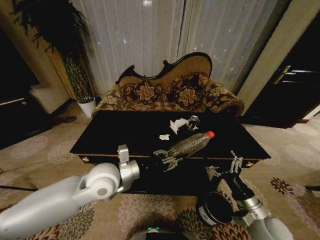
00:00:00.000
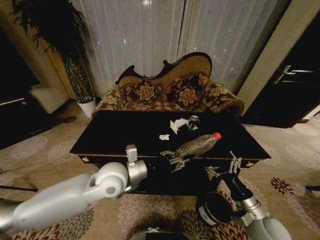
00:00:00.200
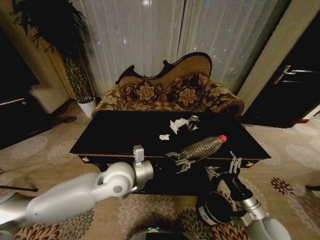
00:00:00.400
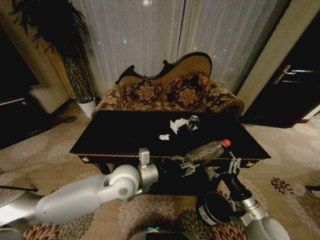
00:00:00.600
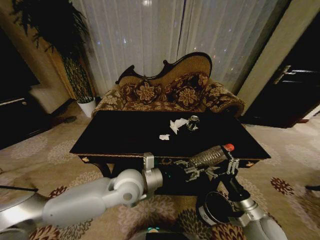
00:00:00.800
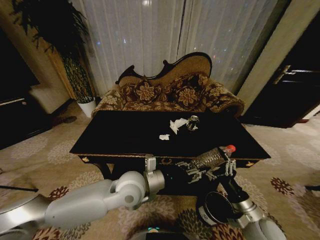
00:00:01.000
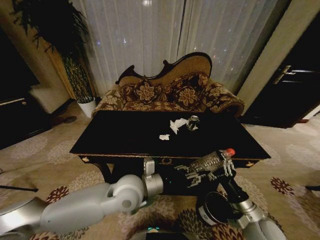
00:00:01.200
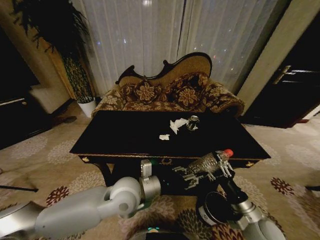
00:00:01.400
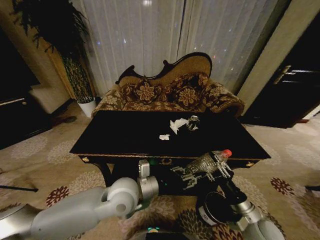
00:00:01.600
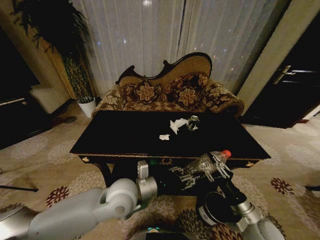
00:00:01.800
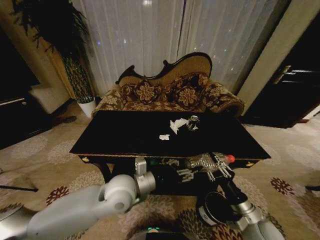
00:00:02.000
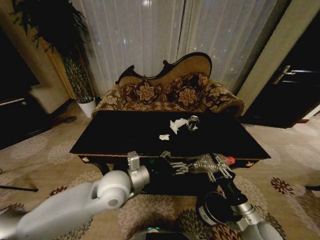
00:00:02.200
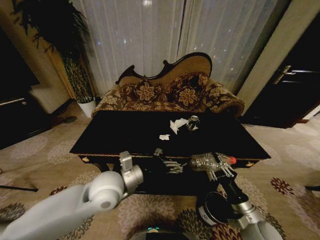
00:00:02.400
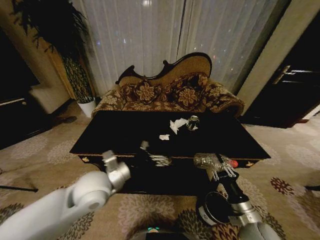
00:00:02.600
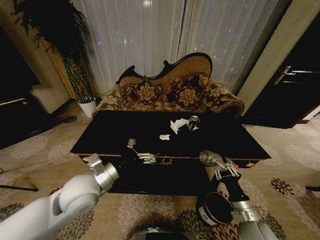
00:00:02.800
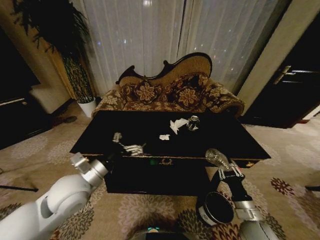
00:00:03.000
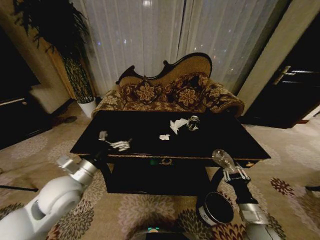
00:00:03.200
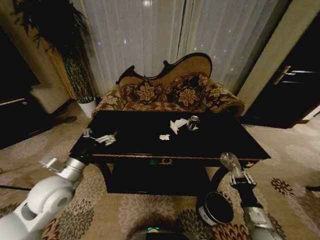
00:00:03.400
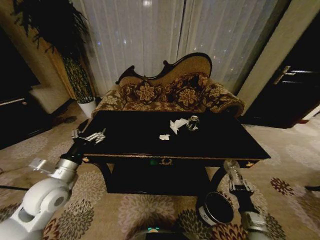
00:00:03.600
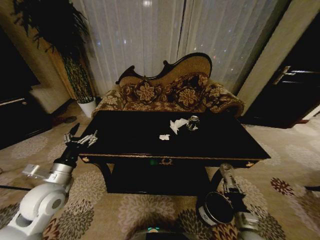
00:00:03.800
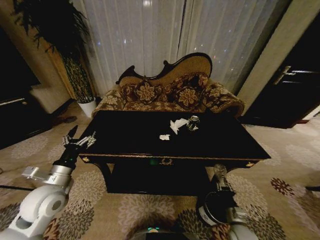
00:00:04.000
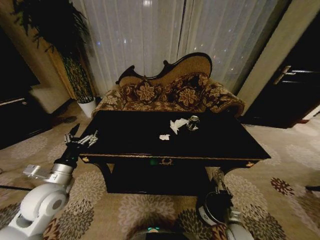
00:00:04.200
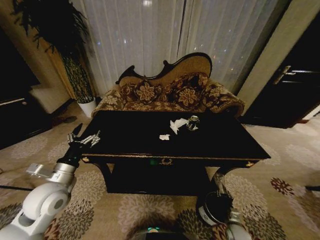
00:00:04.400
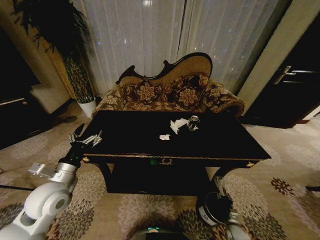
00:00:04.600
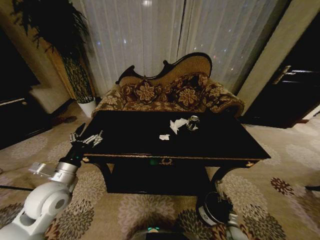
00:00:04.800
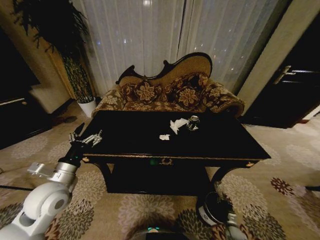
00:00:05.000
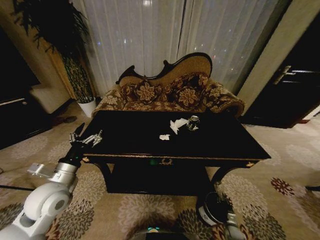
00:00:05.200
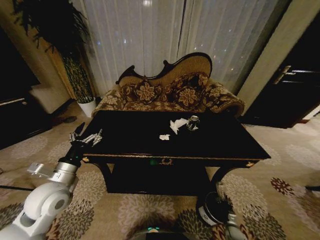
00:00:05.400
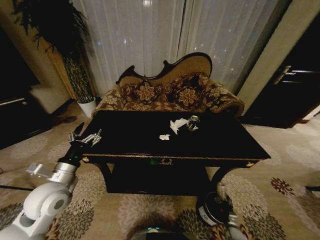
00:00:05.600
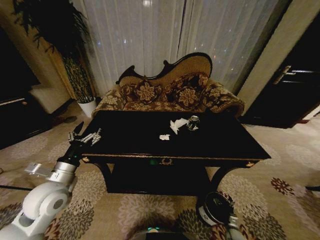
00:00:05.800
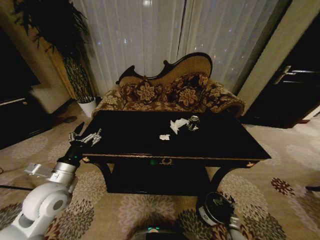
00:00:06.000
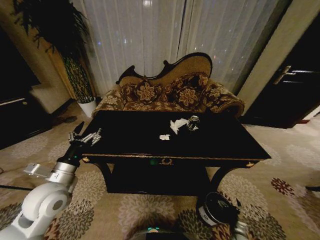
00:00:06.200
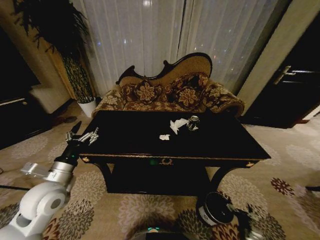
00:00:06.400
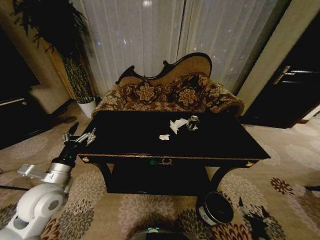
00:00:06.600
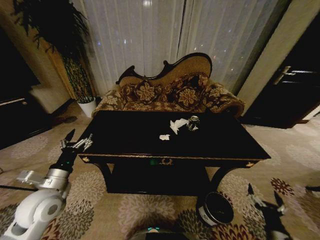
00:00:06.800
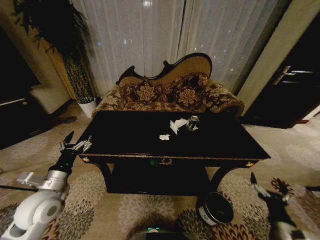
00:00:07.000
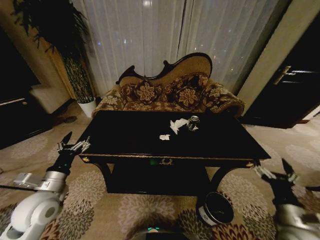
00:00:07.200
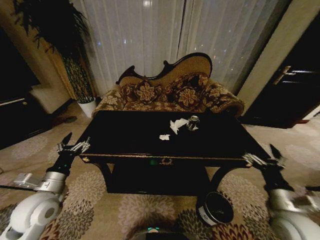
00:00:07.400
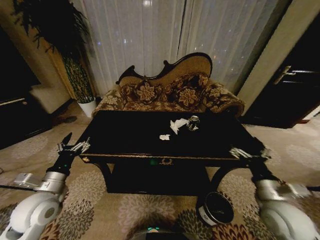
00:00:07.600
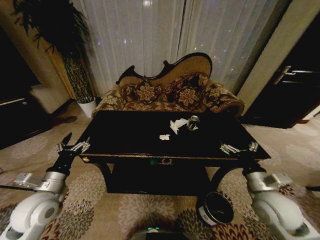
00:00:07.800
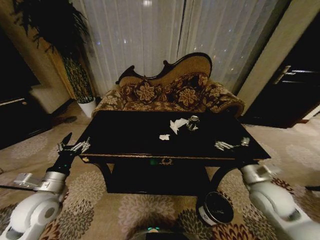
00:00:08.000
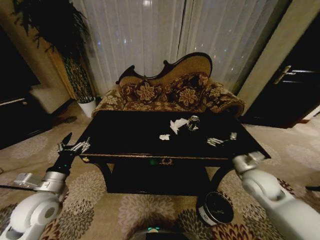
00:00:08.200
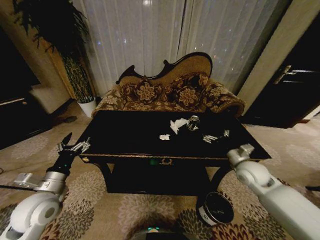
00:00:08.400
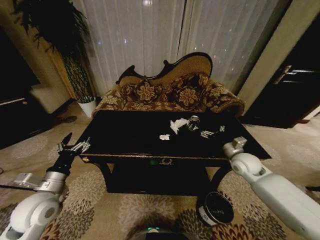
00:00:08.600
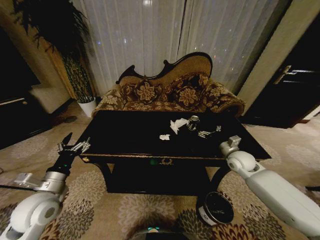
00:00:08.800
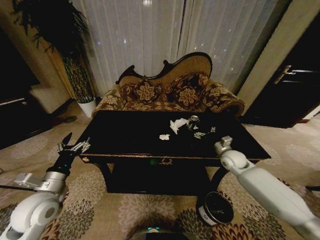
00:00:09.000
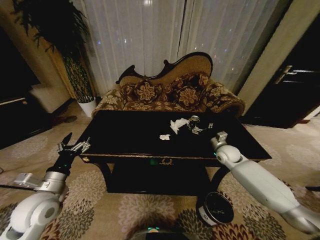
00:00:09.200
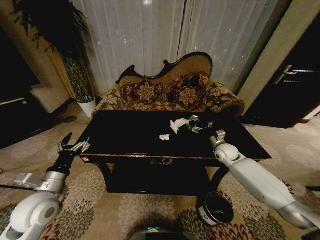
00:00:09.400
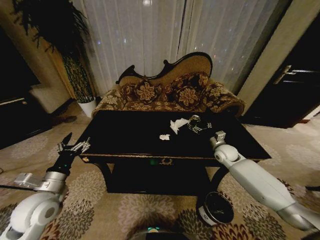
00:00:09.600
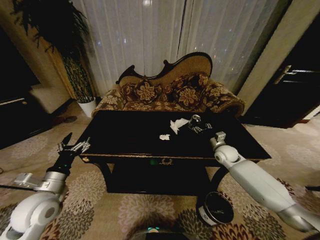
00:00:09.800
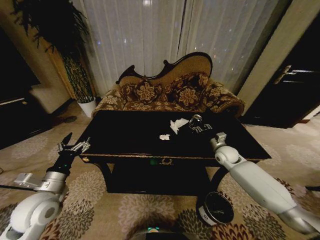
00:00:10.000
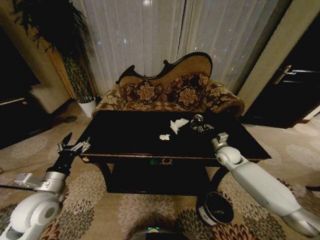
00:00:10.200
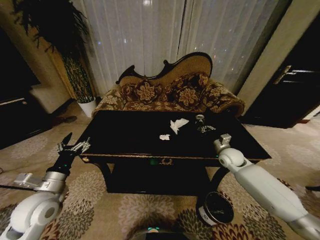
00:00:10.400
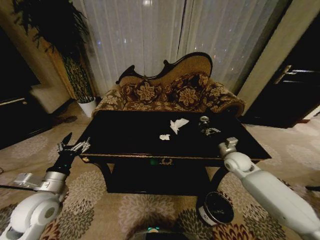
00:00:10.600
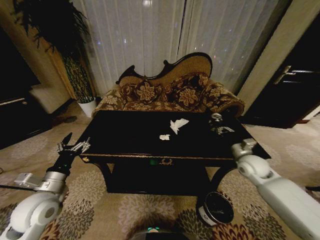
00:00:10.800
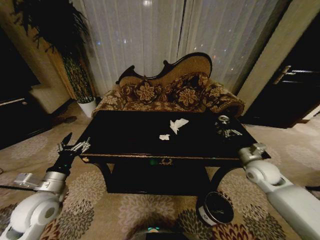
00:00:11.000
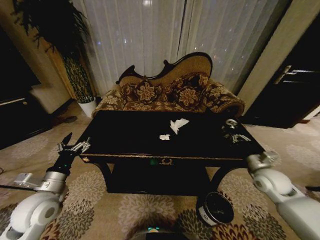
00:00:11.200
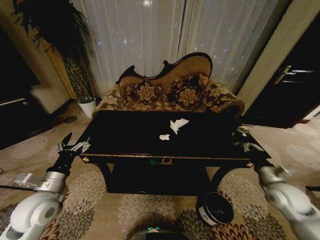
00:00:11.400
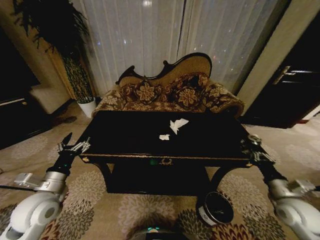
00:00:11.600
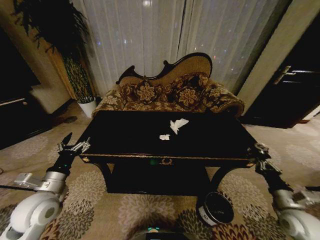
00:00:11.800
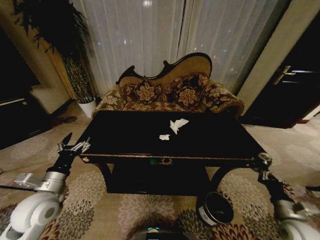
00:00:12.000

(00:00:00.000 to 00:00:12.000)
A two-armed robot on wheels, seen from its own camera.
Task of the whole recording: Move to the front of the table and place the trash on the table into the trash bin.
00:00:00.000 - 00:00:01.600: The left gripper heads to the right, covering about 5 cm; the right gripper closes.
00:00:01.600 - 00:00:03.000: The left gripper heads to the left, covering approximately 15 cm, and opens up.
00:00:03.000 - 00:00:04.400: The left gripper travels to the left by some 10 cm; the right gripper is displaced downward by about 20 cm.
00:00:04.400 - 00:00:06.000: The right gripper heads downward, covering approximately 10 cm, and opens.
00:00:06.000 - 00:00:07.600: The right gripper shifts some 40 cm upward.
00:00:07.600 - 00:00:09.000: The right gripper shifts about 25 cm forward.
00:00:09.000 - 00:00:10.400: The right gripper closes its fingers.
00:00:10.400 - 00:00:12.000: The right gripper travels backward and to the right by some 30 cm.

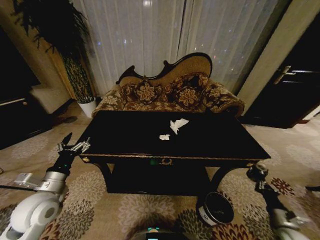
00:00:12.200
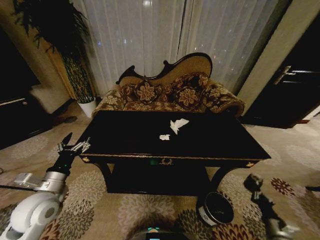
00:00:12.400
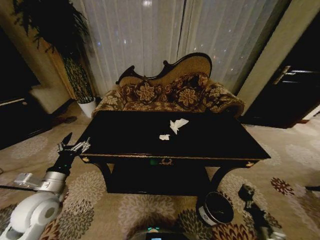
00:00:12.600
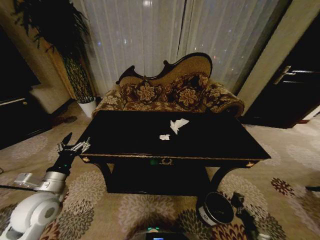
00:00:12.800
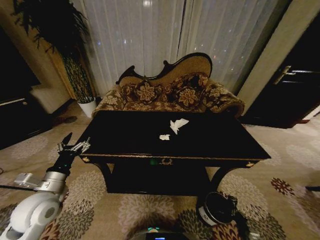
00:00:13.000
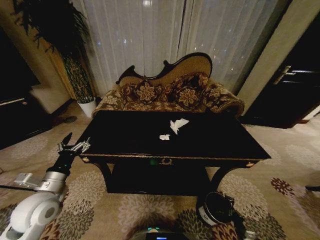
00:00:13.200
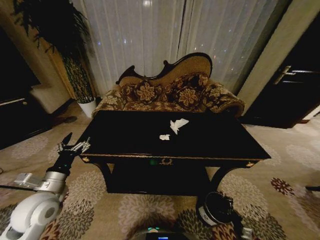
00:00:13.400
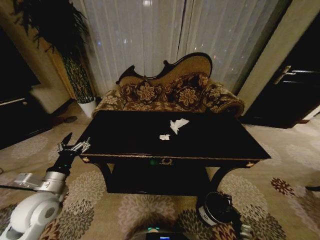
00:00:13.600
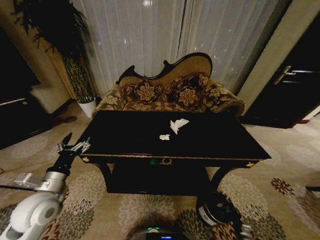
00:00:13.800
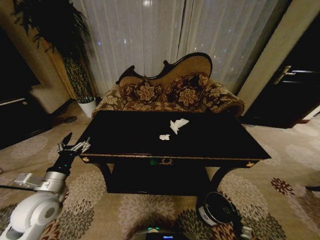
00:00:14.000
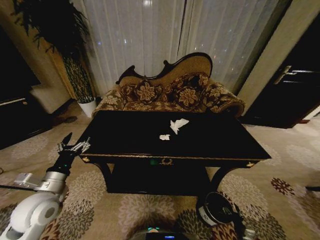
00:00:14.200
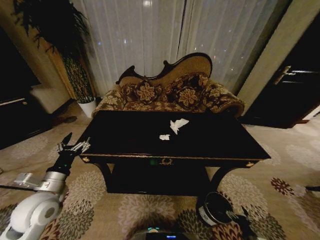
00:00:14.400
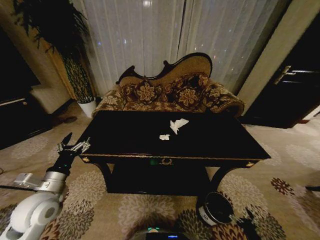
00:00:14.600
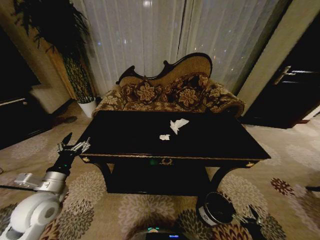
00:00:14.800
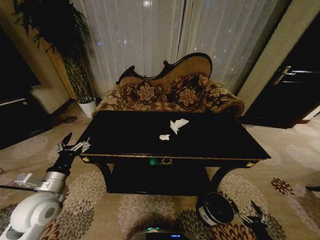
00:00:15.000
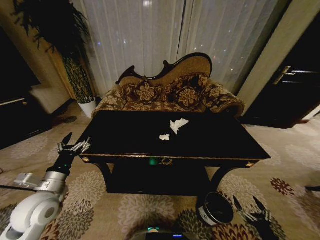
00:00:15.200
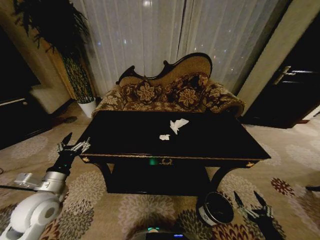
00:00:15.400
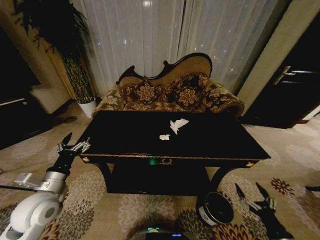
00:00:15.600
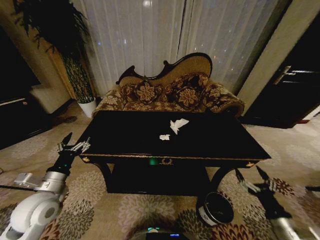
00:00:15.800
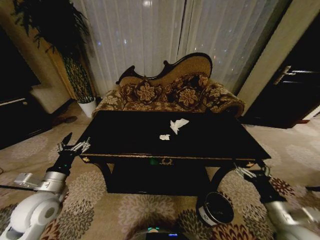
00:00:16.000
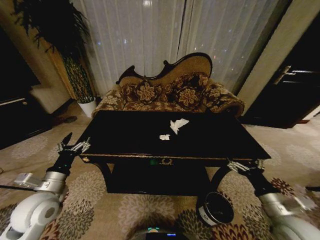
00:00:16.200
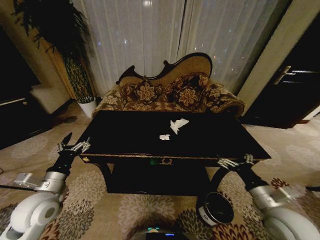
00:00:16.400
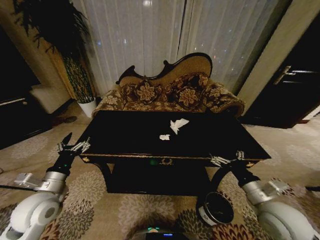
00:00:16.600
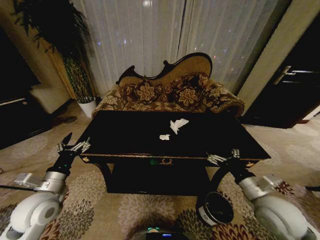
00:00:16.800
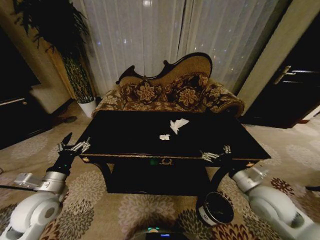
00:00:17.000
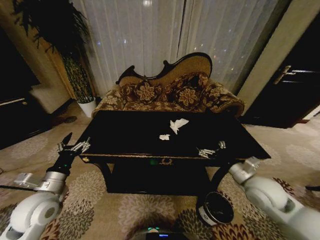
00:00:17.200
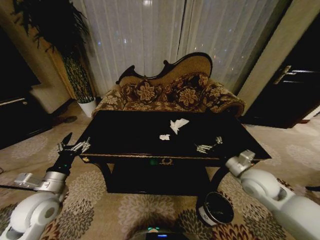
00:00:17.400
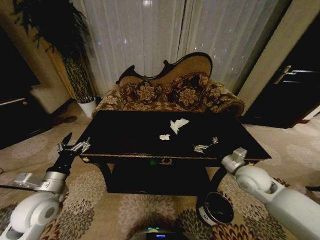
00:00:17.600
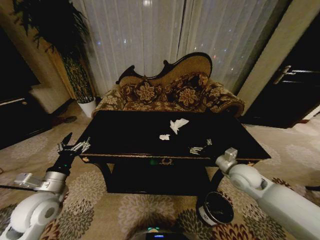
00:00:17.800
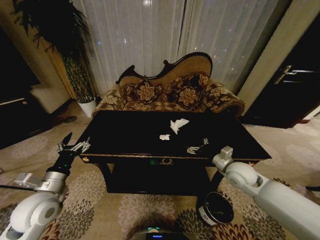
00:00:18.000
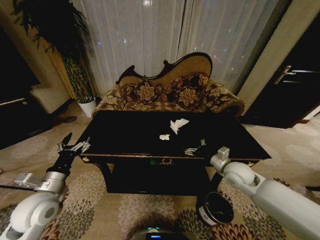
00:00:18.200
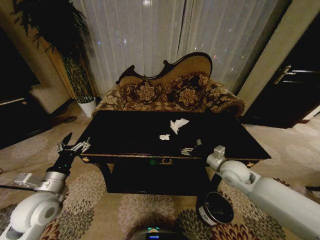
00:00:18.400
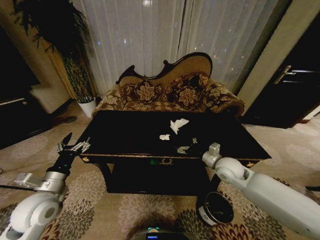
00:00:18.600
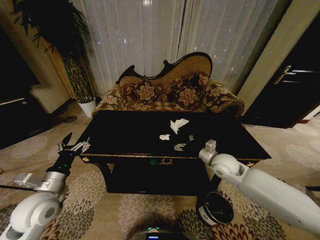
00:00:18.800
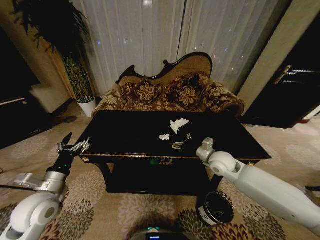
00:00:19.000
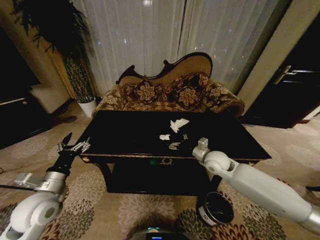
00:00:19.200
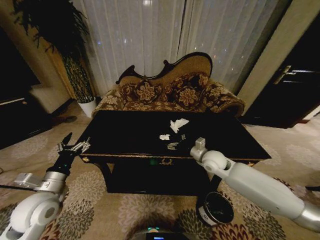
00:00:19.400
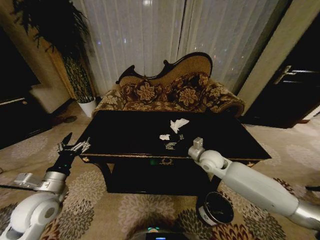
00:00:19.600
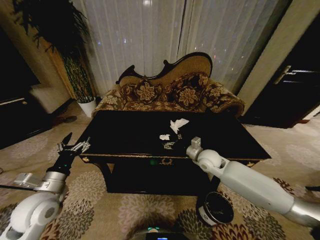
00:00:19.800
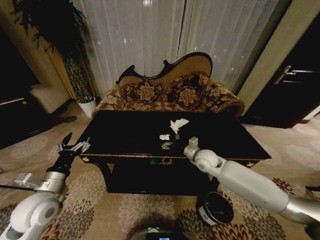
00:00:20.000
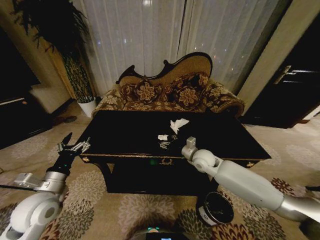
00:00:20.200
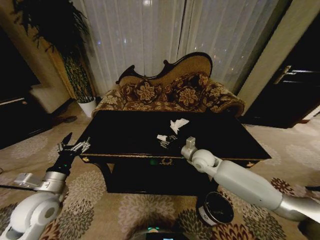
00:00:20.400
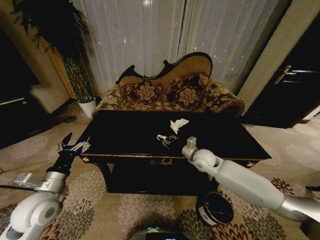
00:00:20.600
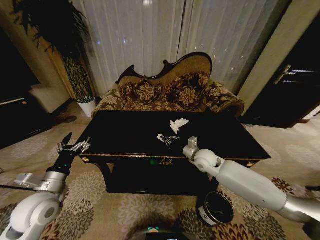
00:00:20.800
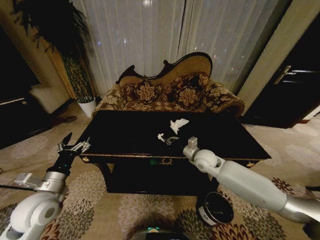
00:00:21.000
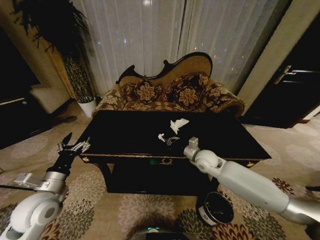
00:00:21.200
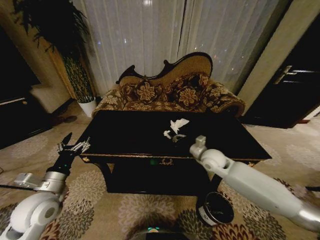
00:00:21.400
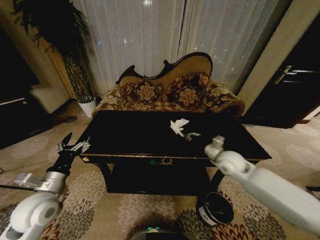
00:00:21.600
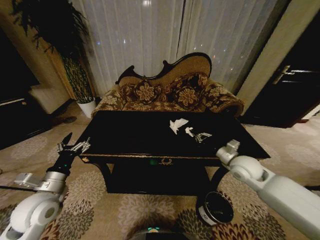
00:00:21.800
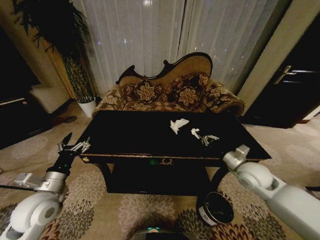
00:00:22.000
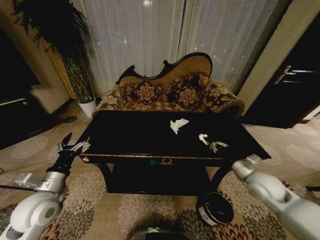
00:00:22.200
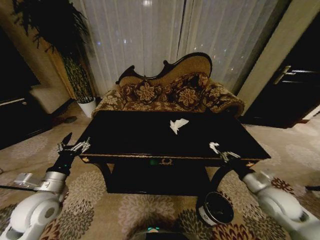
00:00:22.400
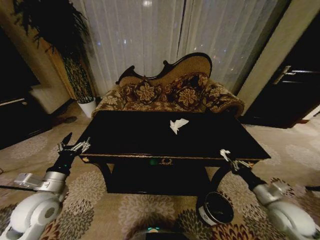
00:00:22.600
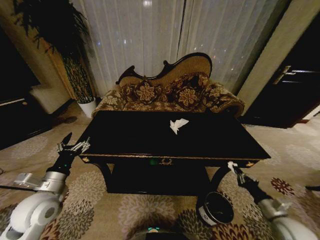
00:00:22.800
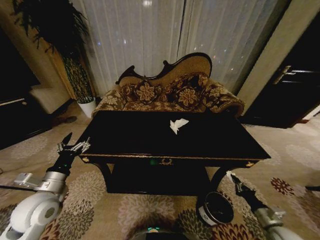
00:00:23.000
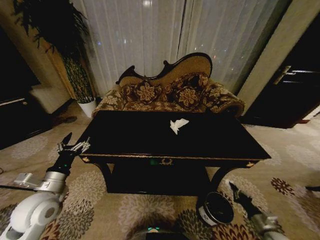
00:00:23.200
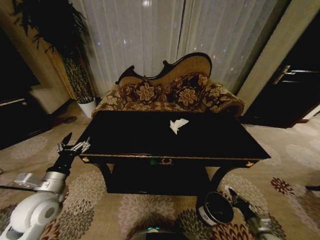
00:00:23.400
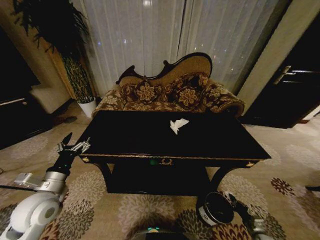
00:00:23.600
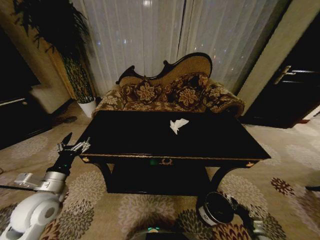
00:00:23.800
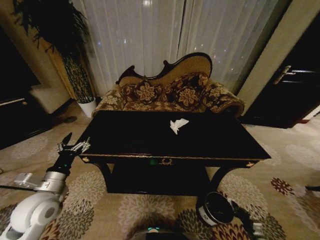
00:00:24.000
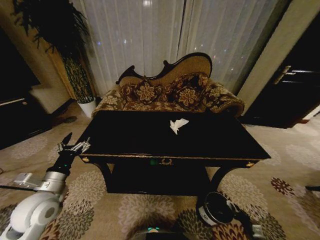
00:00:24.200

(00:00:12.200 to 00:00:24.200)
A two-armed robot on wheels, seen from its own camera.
Task of the whole recording: Move to the front of the table and place the trash on the table into the trash bin.
00:00:12.200 - 00:00:13.800: The right gripper heads downward, covering roughly 25 cm.
00:00:13.800 - 00:00:15.200: The right gripper shifts approximately 25 cm upward and backward, and opens up.
00:00:15.200 - 00:00:16.600: The right gripper is displaced upward, forward and to the left by some 30 cm.
00:00:16.600 - 00:00:18.200: The right gripper travels forward by roughly 15 cm.
00:00:18.200 - 00:00:19.800: The right gripper travels to the left and forward by some 10 cm.
00:00:19.800 - 00:00:21.200: The right gripper closes up.
00:00:21.200 - 00:00:22.600: The right gripper travels to the right and backward by some 30 cm.
00:00:22.600 - 00:00:24.200: The right gripper moves downward, roughly 30 cm.
